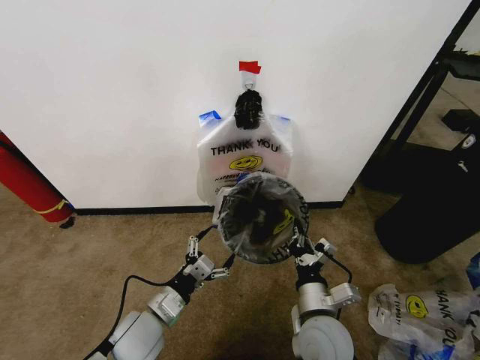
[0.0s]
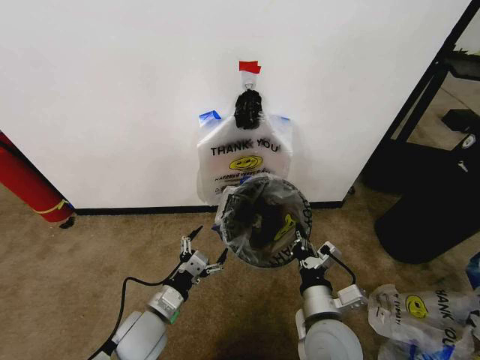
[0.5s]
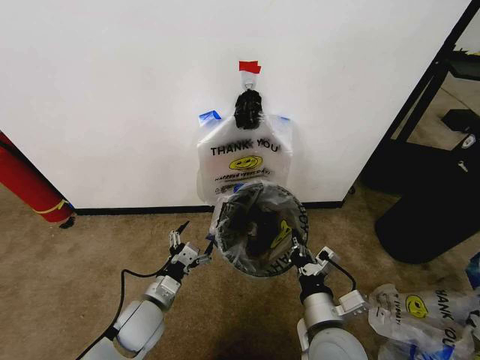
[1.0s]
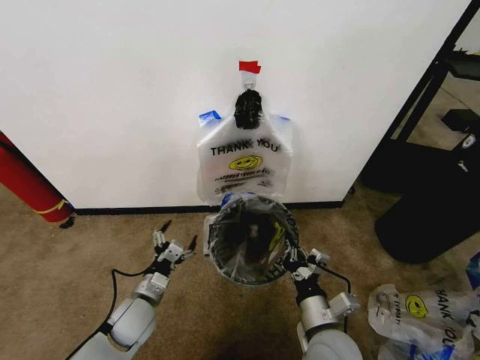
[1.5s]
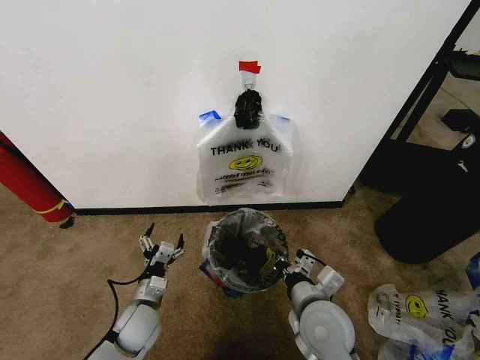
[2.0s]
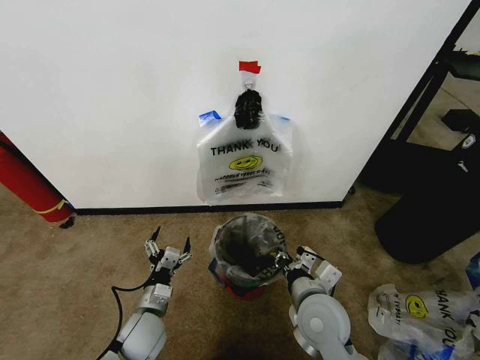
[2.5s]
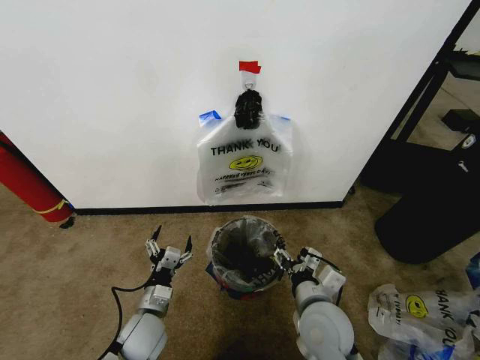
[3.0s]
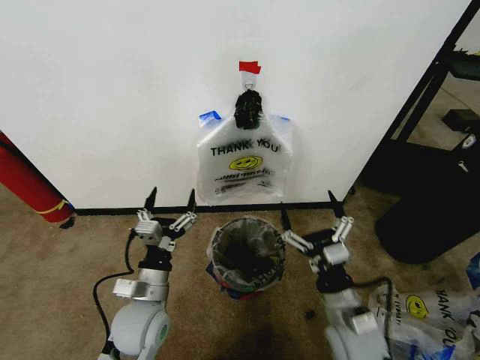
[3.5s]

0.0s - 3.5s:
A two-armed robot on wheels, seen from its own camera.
Task of the whole recording: Pick up the garbage bag from the wall and place it over the trash bin.
0.0s - 2.0s: The left gripper travels downward by some 5 cm.
2.0s - 3.5s: The left gripper goes about 10 cm upward. Meanwhile the right gripper is displaced to the right by about 5 cm, and opens.

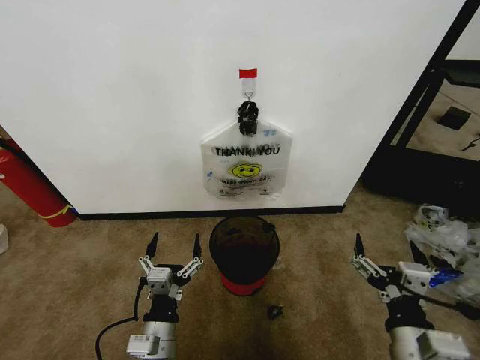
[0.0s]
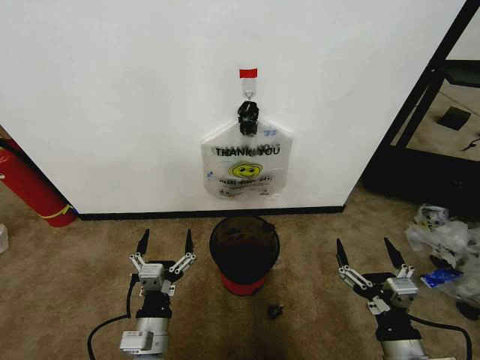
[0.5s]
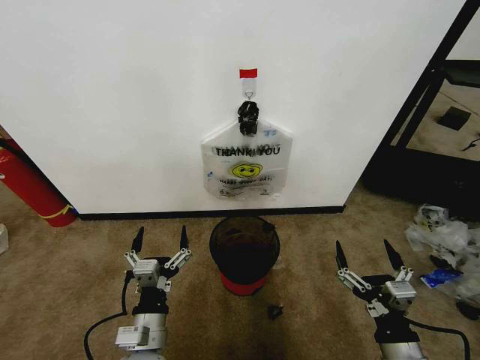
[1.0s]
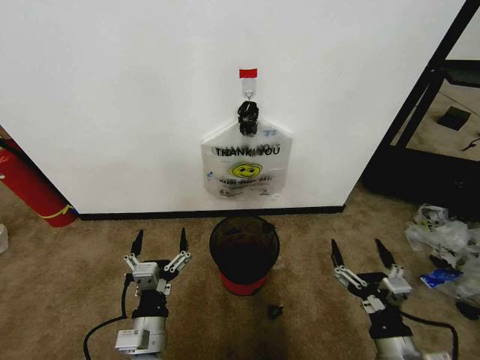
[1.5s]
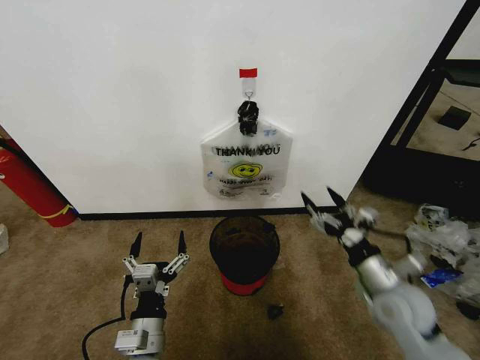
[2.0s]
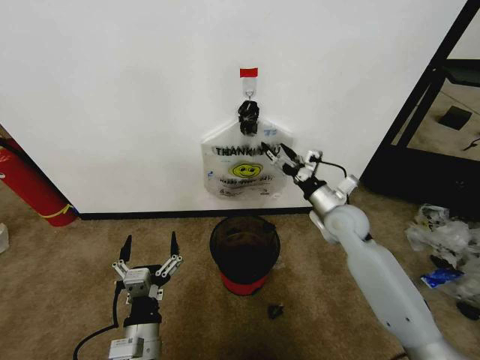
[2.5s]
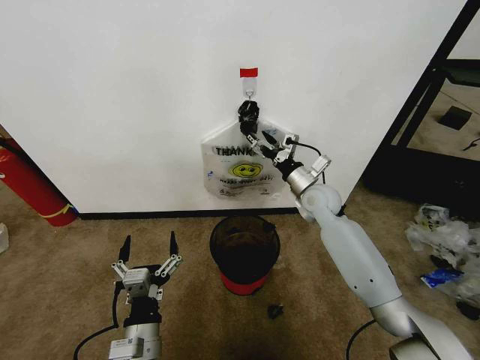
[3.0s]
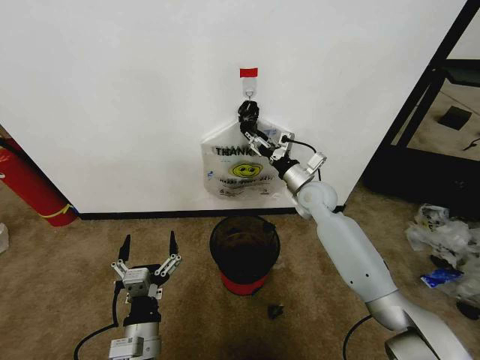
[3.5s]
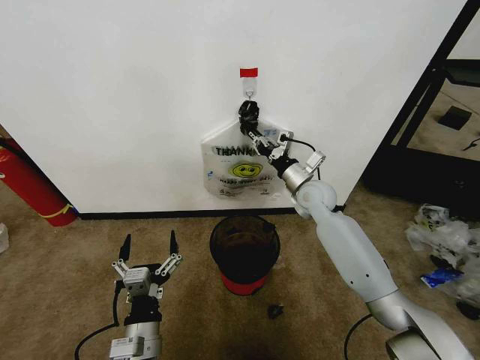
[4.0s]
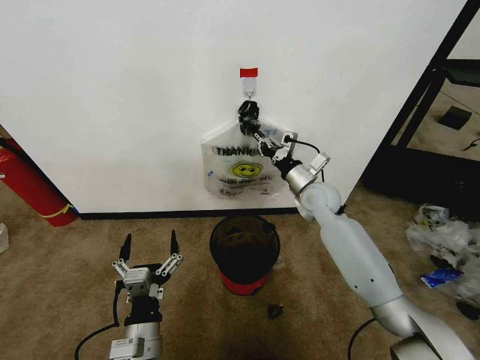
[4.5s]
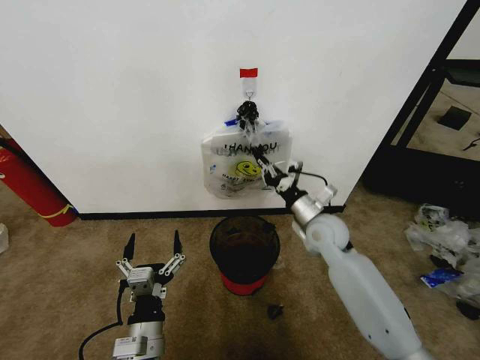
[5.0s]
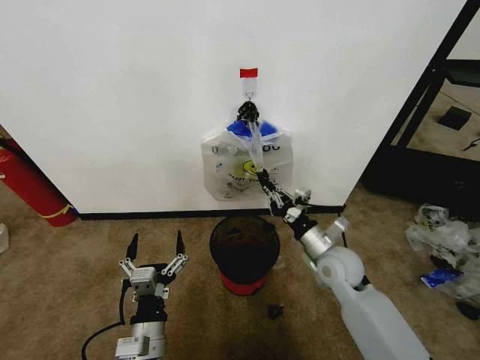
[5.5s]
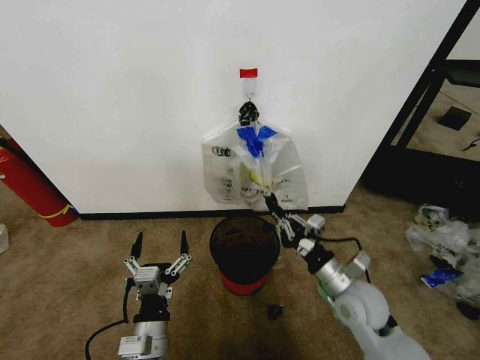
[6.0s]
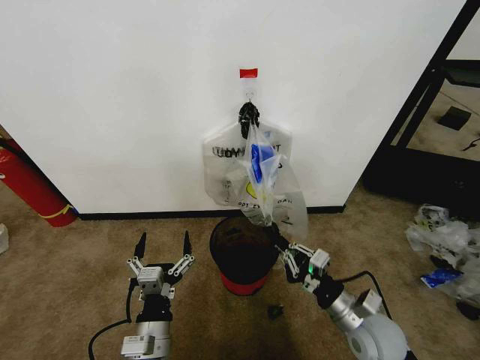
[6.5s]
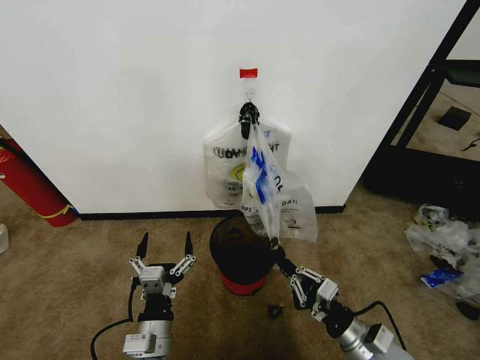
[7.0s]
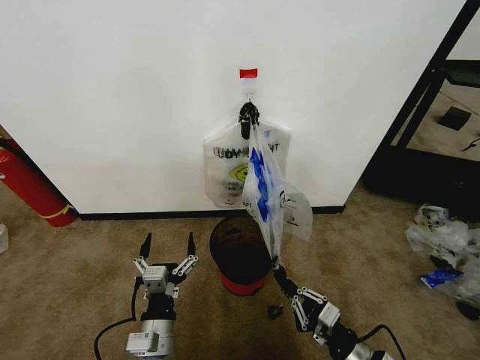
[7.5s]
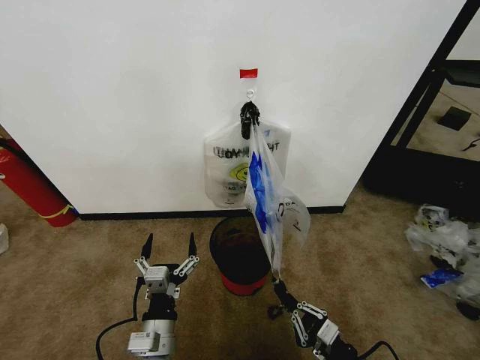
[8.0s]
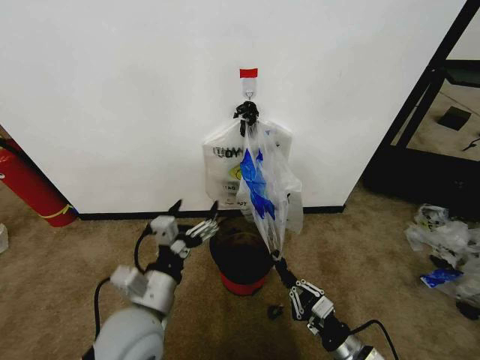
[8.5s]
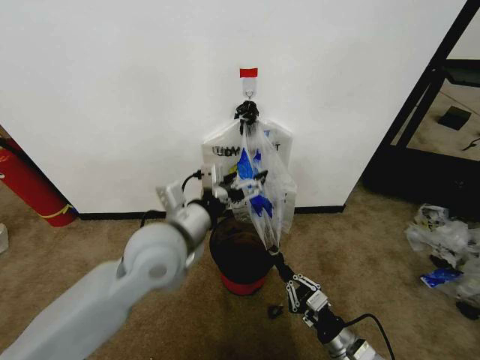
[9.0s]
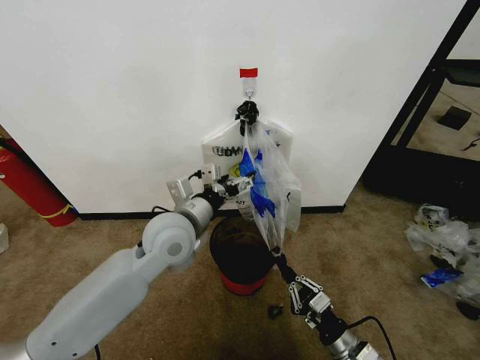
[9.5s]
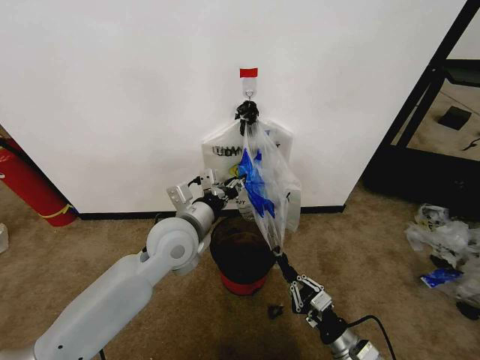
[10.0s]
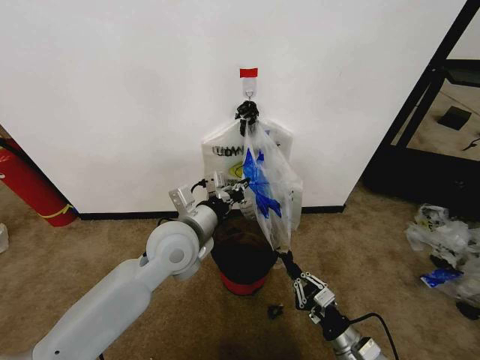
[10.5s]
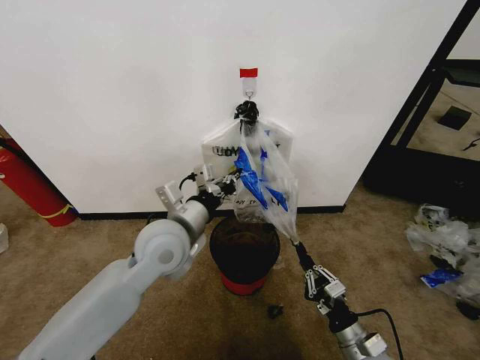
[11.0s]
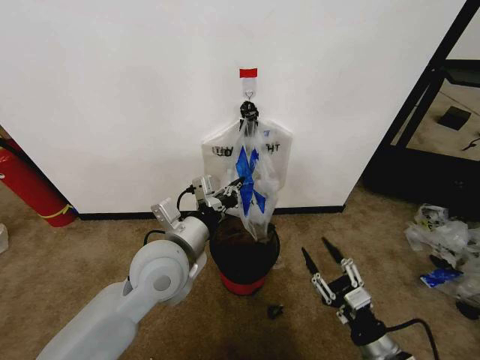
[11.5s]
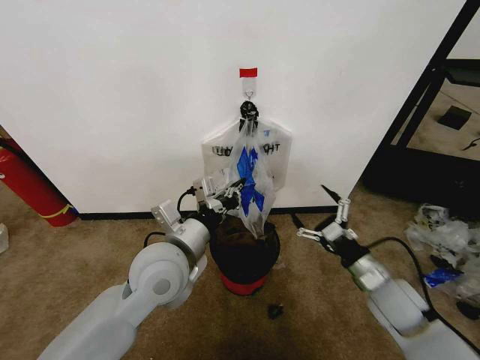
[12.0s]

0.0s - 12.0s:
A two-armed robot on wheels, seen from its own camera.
Task of the whole recording: Pick up the garbage bag from the wall and place it over the trash bin.
2.0s - 4.0s: The right gripper heads forward and to the left, covering roughly 30 cm, and closes up.
4.0s - 6.0s: The right gripper is displaced backward by approximately 25 cm.
6.0s - 8.0s: The right gripper moves backward and downward, some 20 cm.
8.0s - 10.0s: The left gripper moves forward and upward, approximately 25 cm, and closes its fingers.
10.0s - 12.0s: The left gripper travels backward by about 5 cm, and closes its fingers. Meanwhile the right gripper heads upward and forward, covering approximately 15 cm, and opens its fingers.

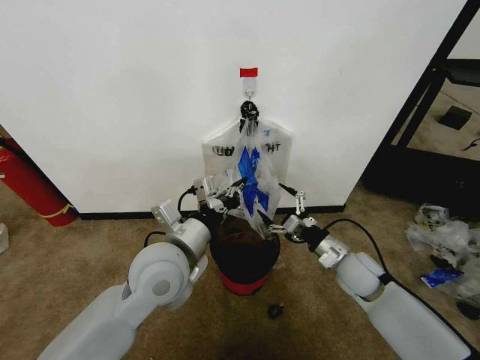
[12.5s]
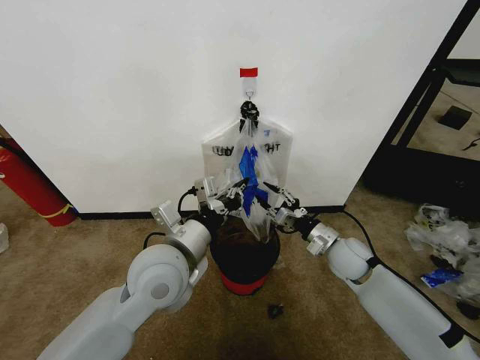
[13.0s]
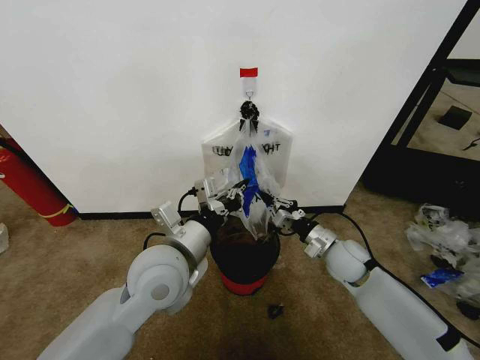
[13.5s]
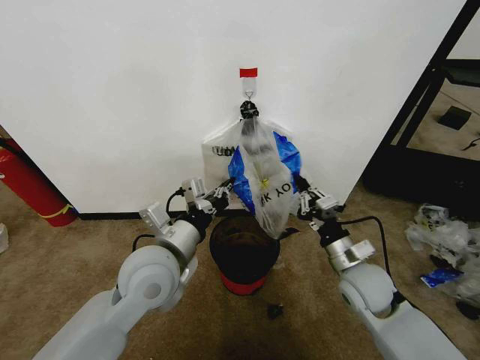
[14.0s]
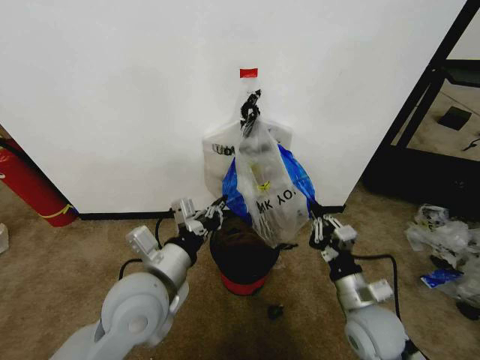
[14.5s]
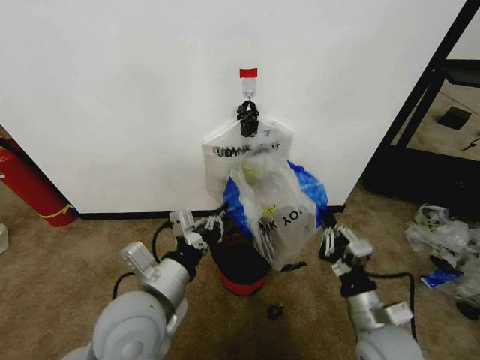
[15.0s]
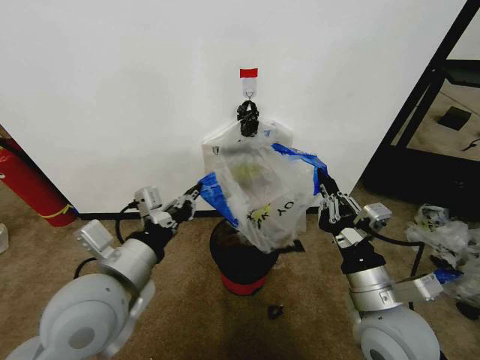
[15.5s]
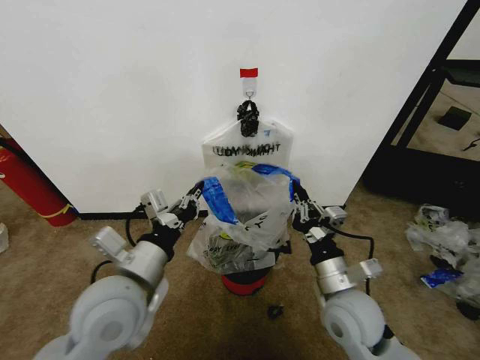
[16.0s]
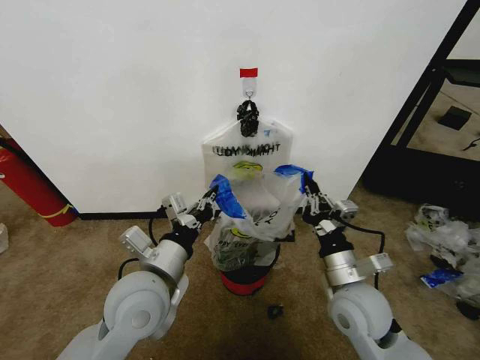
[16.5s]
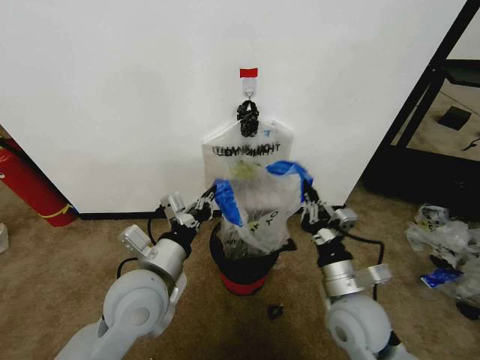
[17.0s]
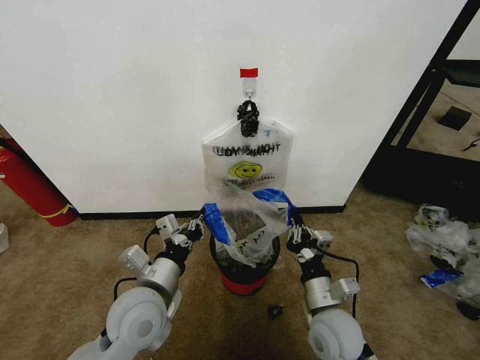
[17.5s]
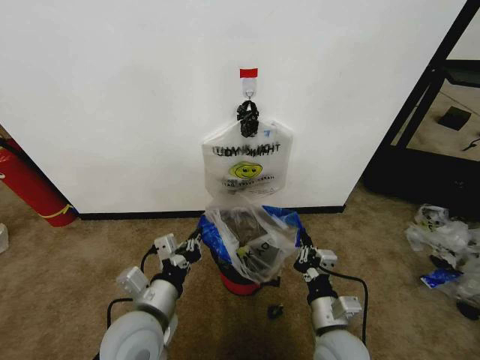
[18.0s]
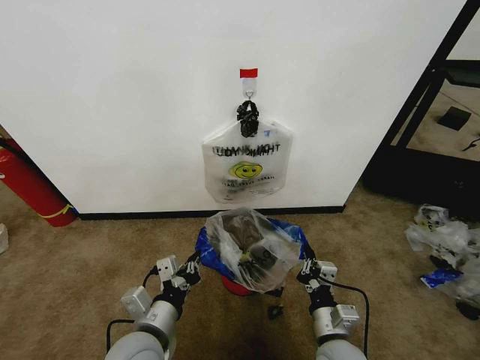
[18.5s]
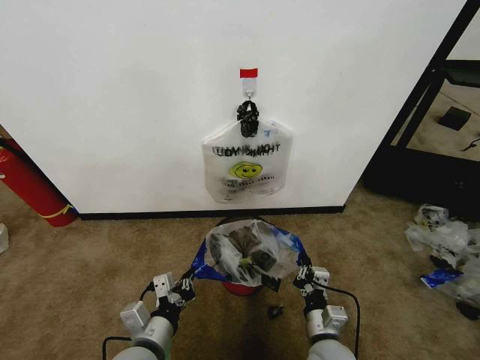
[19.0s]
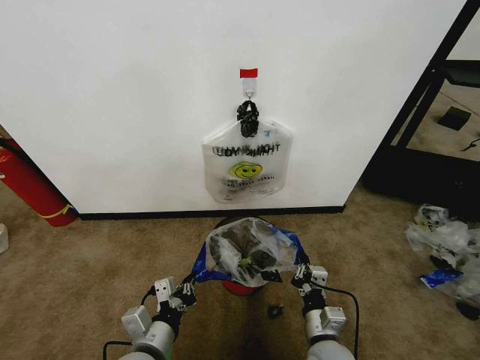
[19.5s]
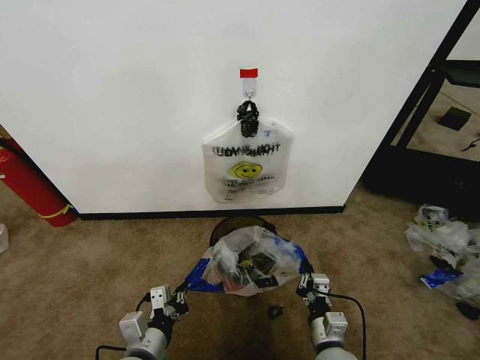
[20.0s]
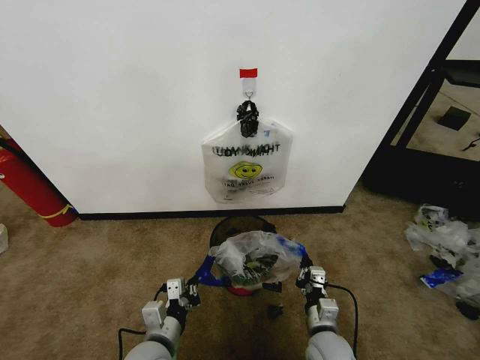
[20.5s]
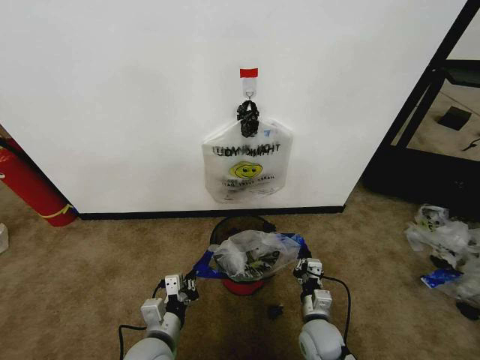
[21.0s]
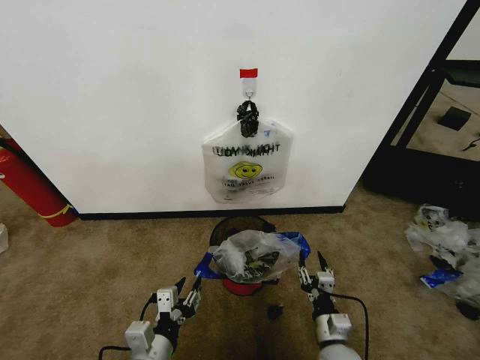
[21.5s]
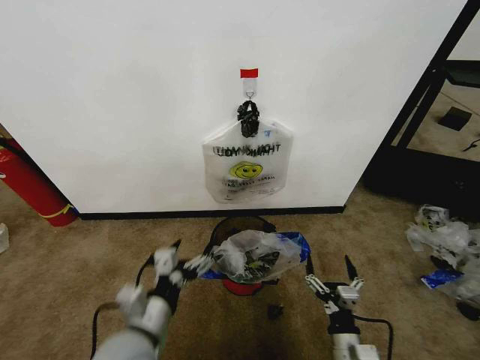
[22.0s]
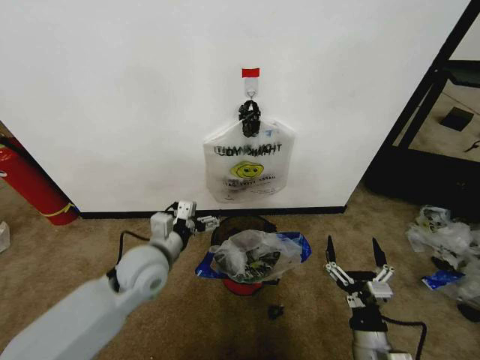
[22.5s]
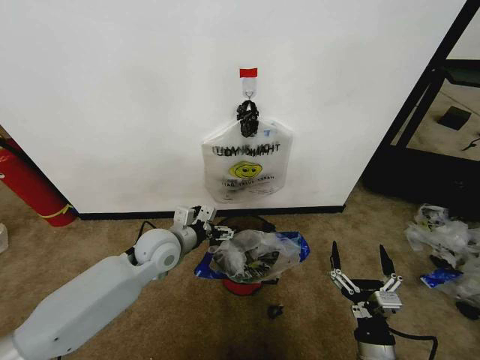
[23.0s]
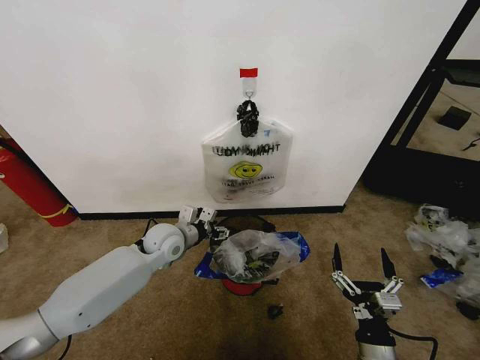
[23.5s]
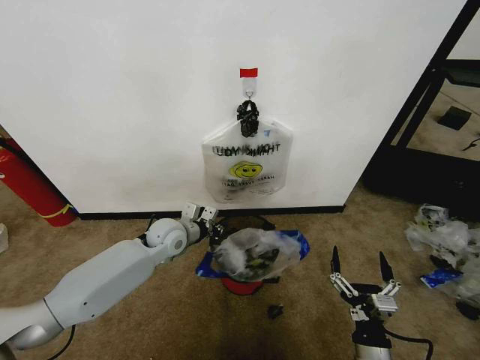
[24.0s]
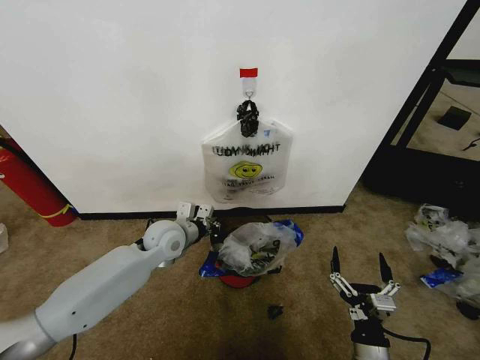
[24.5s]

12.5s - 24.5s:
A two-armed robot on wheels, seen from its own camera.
Task of the whole recording: Pick up the garbage bag from the wall and place it over the trash bin.
12.5s - 14.5s: The left gripper moves approximately 5 cm; the right gripper travels backward by approximately 10 cm, and closes up.
14.5s - 16.5s: The right gripper moves upward, about 5 cm.
16.5s - 18.5s: The two grippers go roughly 15 cm downward and backward.
18.5s - 20.5s: Both grippers move downward, about 10 cm.
20.5s - 22.5s: The right gripper moves backward, upward and to the right, approximately 10 cm, and opens, while the left gripper goes some 20 cm forward and upward, and opens up.
22.5s - 24.5s: The left gripper travels forward by approximately 10 cm, and closes up.
